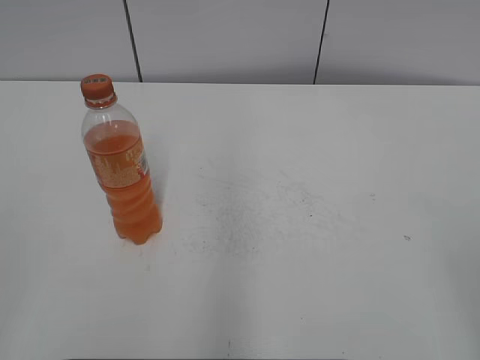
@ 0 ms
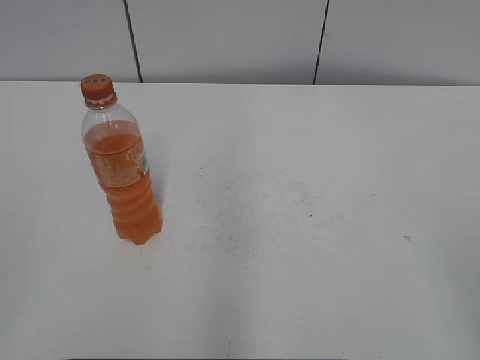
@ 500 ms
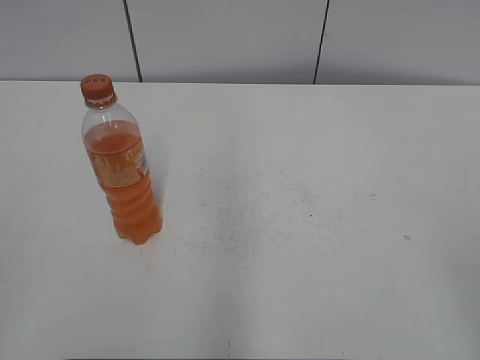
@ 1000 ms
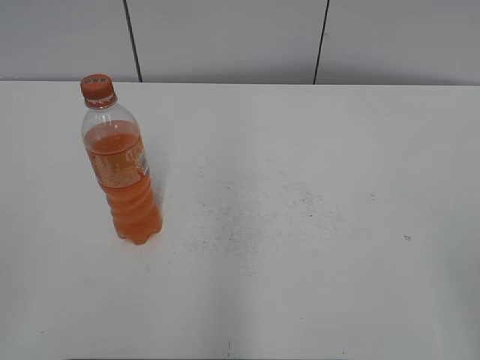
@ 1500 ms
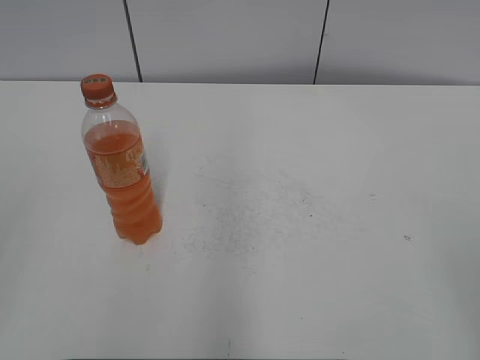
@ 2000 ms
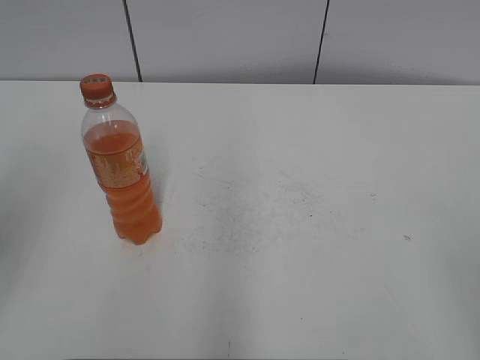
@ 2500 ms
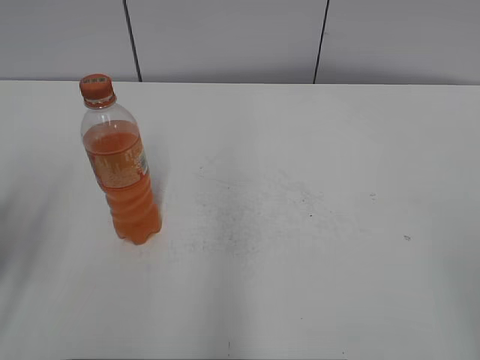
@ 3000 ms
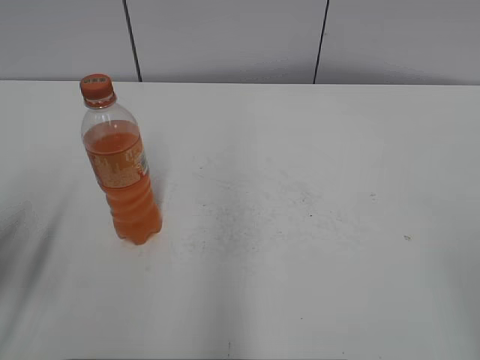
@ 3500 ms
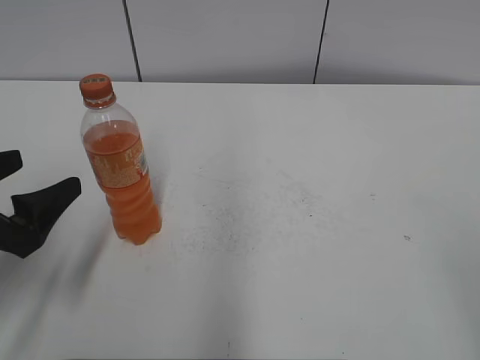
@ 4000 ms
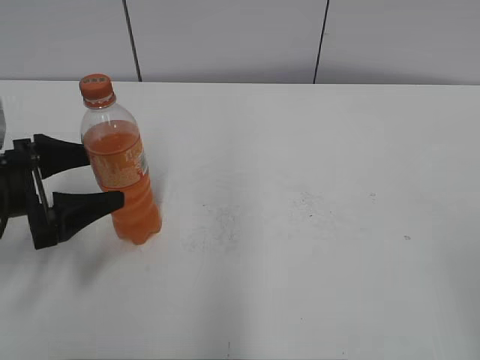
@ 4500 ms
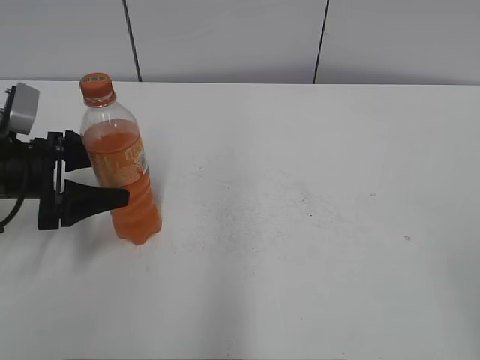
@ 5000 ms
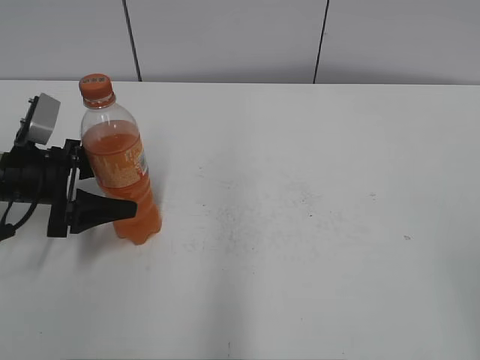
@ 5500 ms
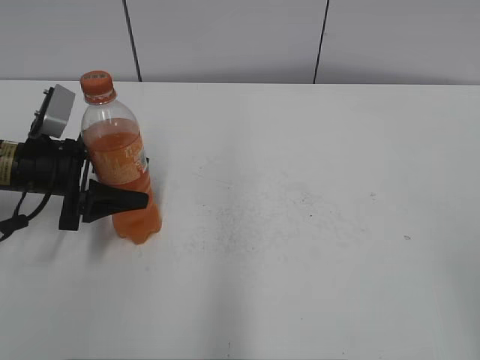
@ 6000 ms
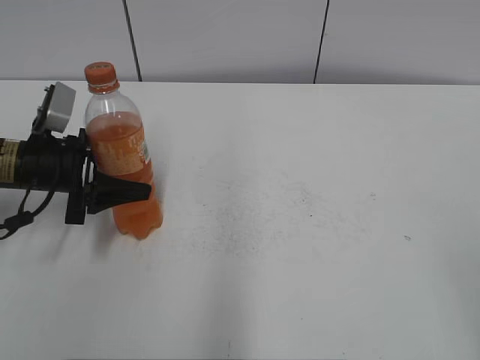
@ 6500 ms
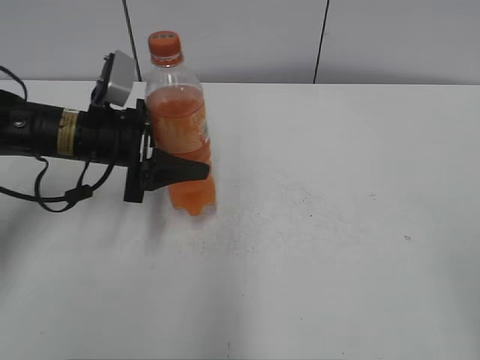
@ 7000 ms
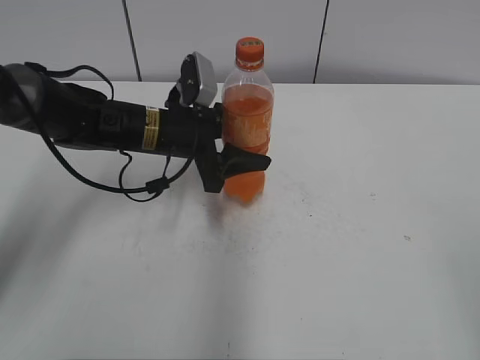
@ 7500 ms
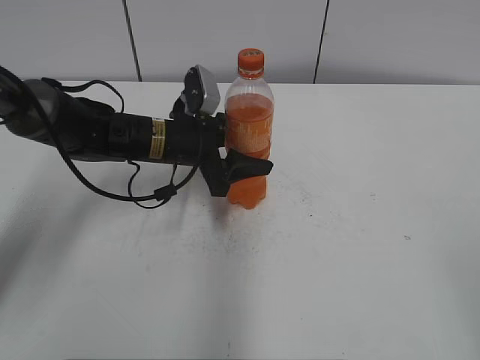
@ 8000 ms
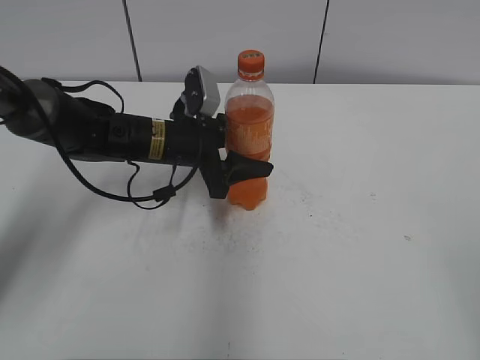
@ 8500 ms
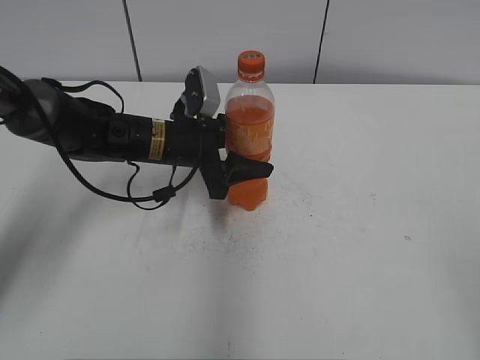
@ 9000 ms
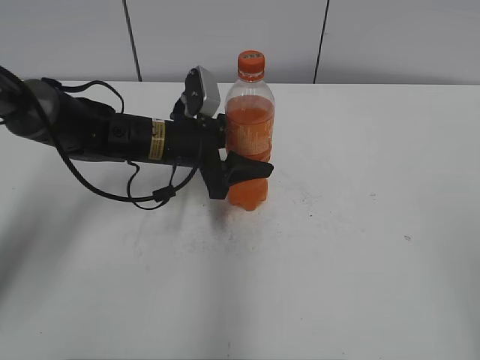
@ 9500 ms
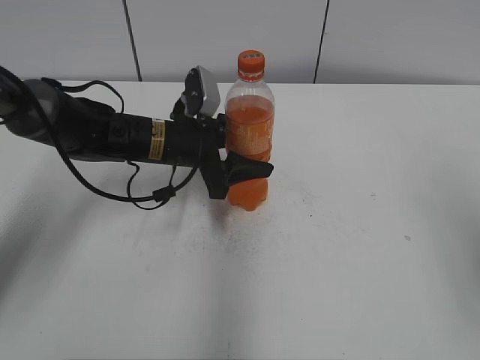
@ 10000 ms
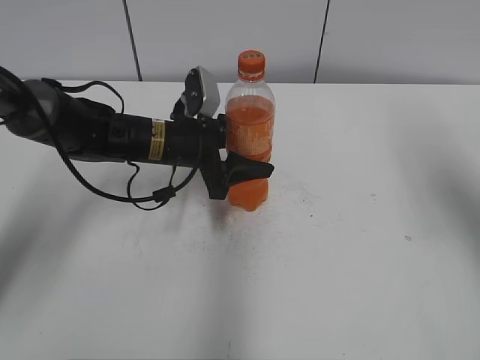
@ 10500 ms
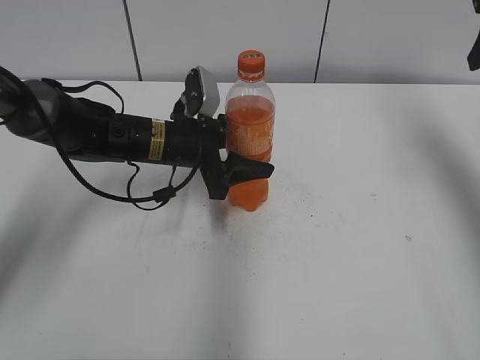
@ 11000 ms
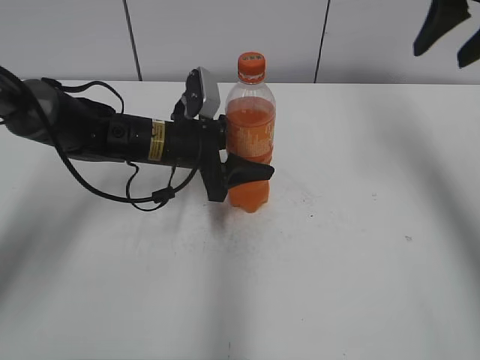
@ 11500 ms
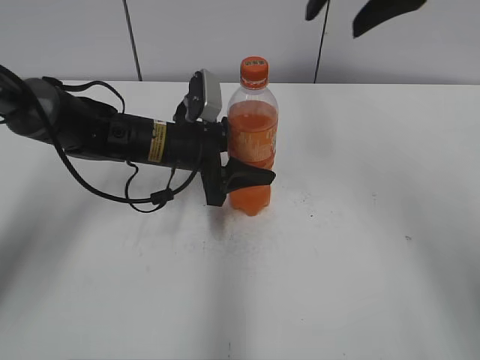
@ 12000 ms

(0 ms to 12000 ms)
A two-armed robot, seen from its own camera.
Step, 0 ms - 6000 ms: Grab the Mirinda with the left hand.
Step, 6500 ms - 8000 ms: Move the Mirinda from left to right.
2000 ms - 4000 ms: The left gripper heads forward and downward, covering some 25 cm, and opens its fingers.
4000 ms - 6000 ms: The left gripper heads forward, covering approximately 15 cm, and opens, then closes again.
6000 ms - 8000 ms: The left gripper goes roughly 15 cm to the right, and closes.
8000 ms - 10000 ms: The right gripper shifts about 10 cm forward.
10000 ms - 12000 ms: The right gripper travels forward and to the left by roughly 30 cm.

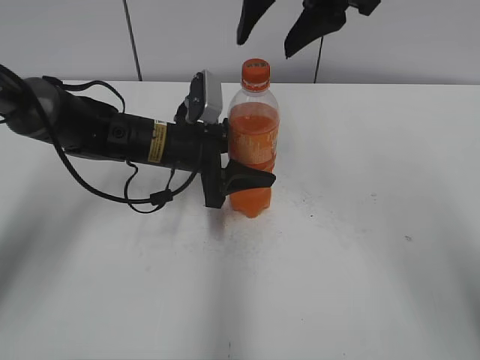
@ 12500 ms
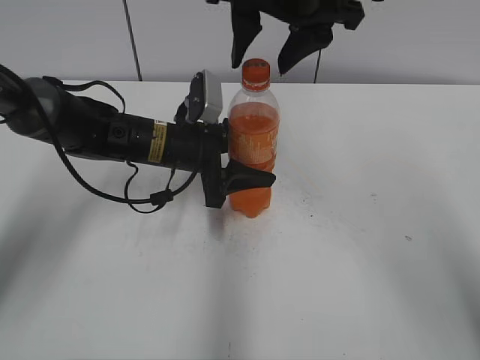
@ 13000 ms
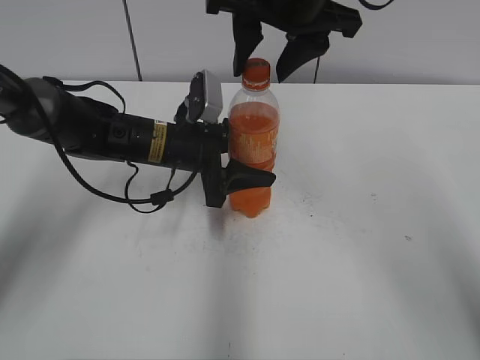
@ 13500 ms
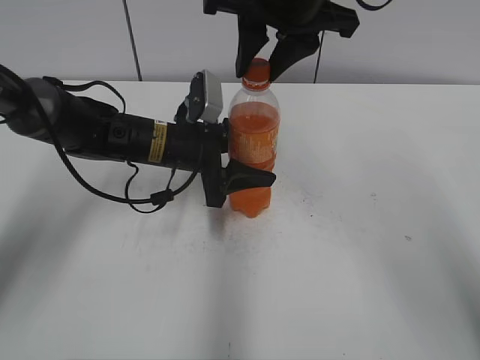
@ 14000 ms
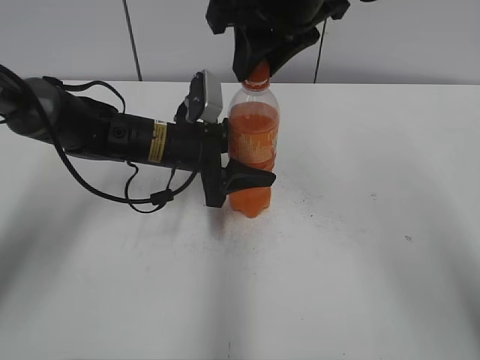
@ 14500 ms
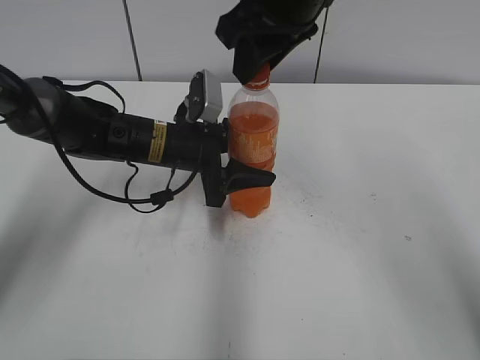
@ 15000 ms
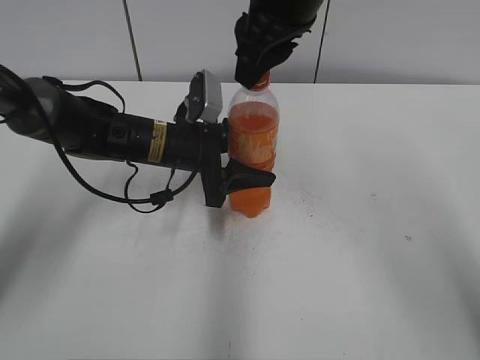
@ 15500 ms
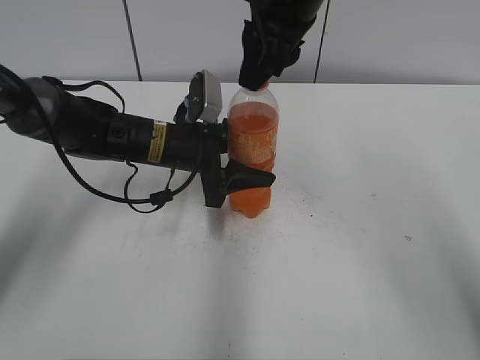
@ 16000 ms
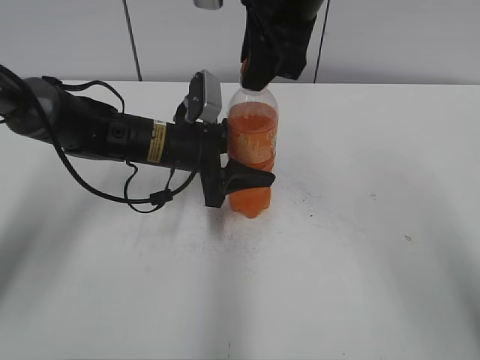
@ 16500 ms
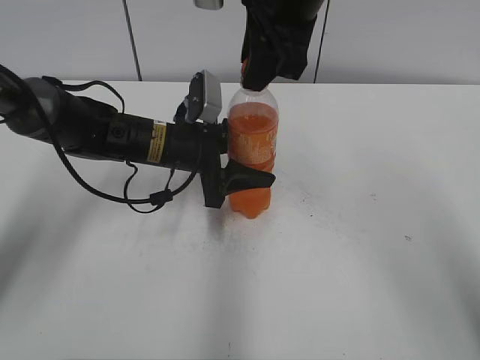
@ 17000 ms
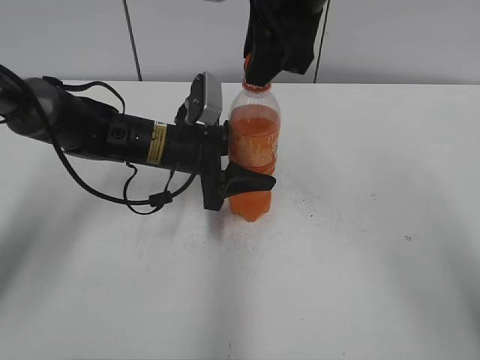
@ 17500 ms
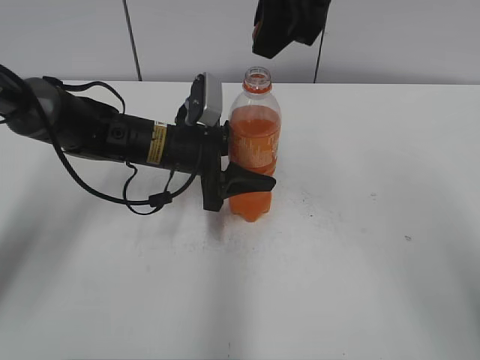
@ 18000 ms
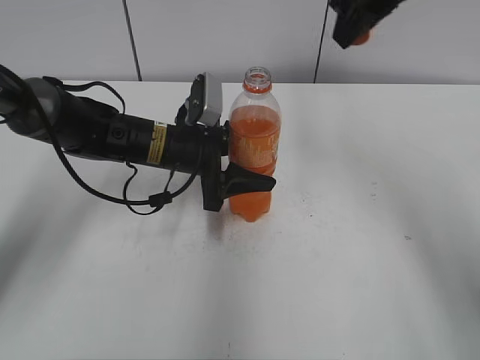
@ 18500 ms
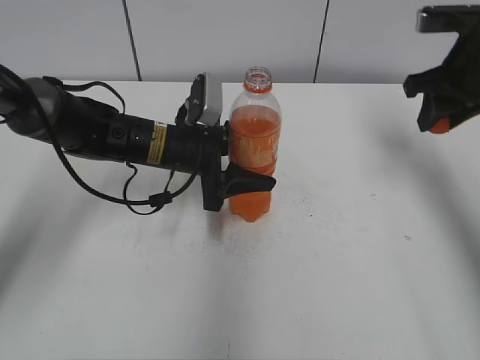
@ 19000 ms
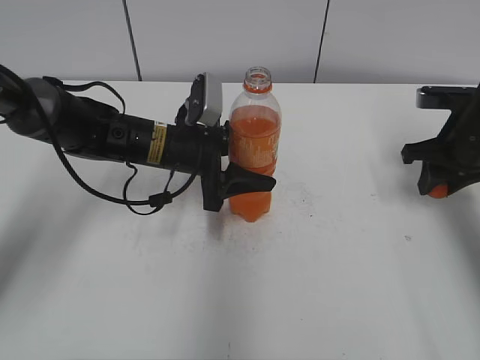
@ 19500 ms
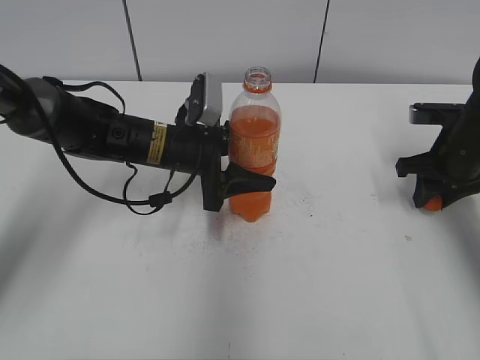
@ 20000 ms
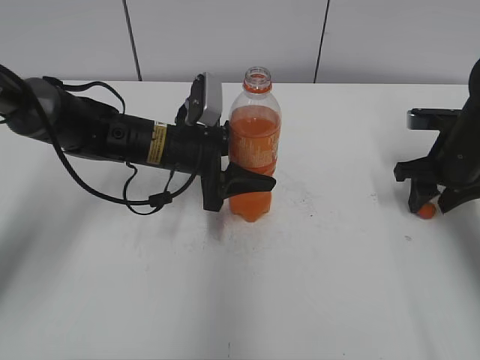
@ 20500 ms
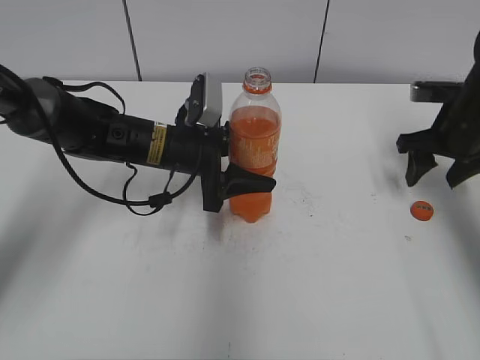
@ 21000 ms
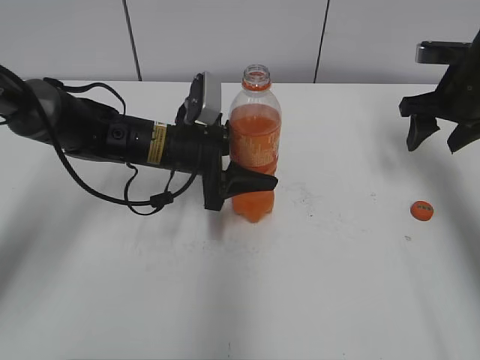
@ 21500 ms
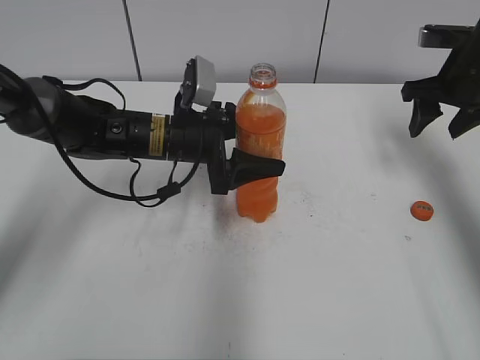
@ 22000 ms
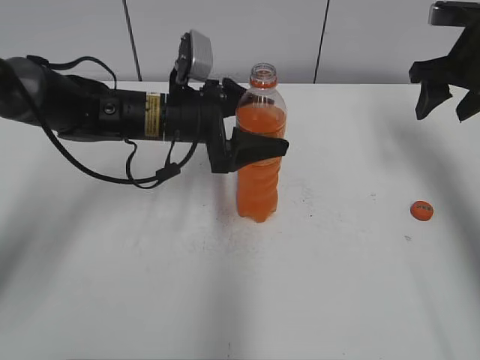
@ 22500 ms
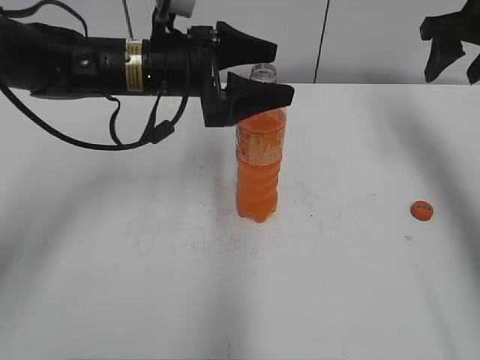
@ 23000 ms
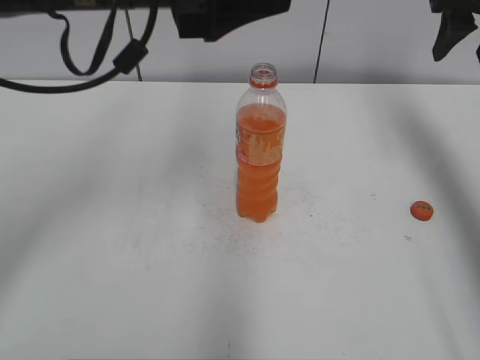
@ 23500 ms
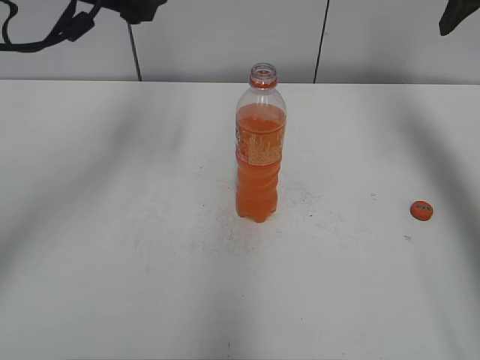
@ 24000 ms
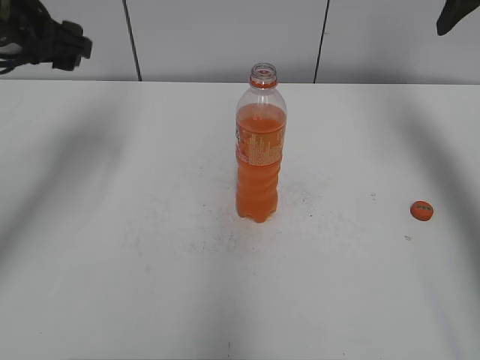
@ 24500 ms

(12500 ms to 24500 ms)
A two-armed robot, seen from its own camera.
Step, 12500 ms - 17500 ms: Twist the bottle cap with the right hand.
Step, 18000 ms - 20500 ms: Place the bottle cap on the right.
Step, 21000 ms - 22000 ms: Place the Mirinda with the left hand.
12500 ms - 14500 ms: The right gripper closes up.
16500 ms - 18500 ms: The right gripper goes roughly 10 cm to the right.
18500 ms - 20500 ms: The right gripper heads downward and to the right, covering roughly 30 cm.
20500 ms - 22500 ms: The left gripper opens; the right gripper shifts some 10 cm upward, and opens up.
22500 ms - 24500 ms: The right gripper moves upward, roughly 10 cm. The left gripper moves to the left and upward, roughly 20 cm.

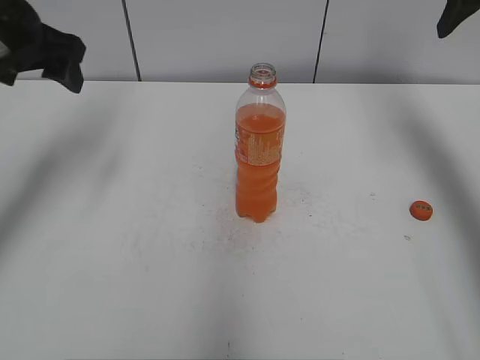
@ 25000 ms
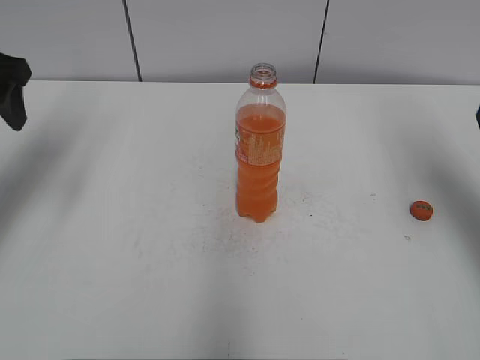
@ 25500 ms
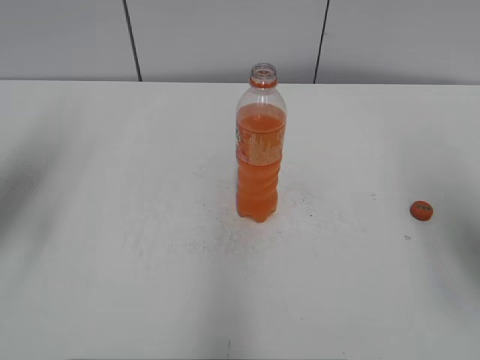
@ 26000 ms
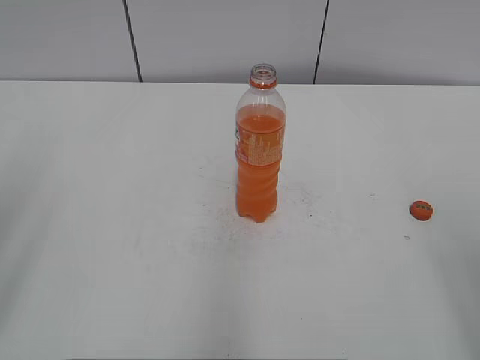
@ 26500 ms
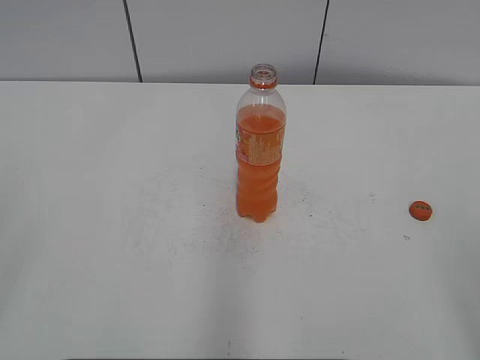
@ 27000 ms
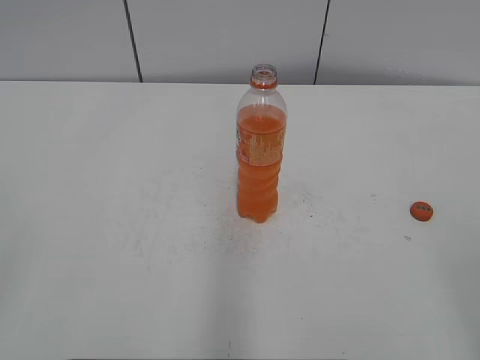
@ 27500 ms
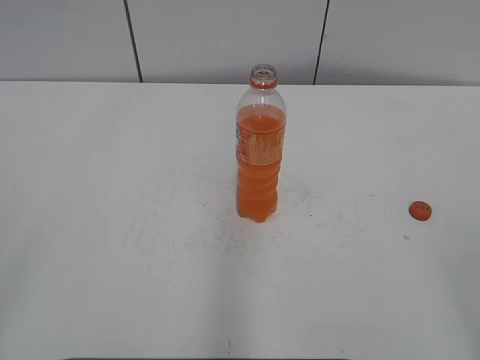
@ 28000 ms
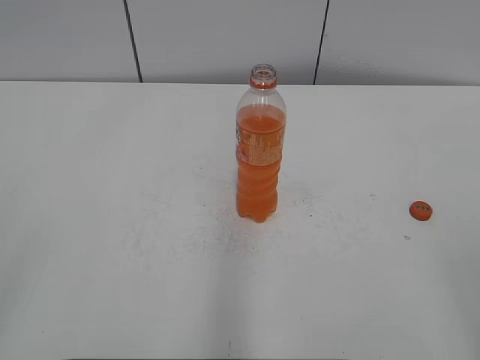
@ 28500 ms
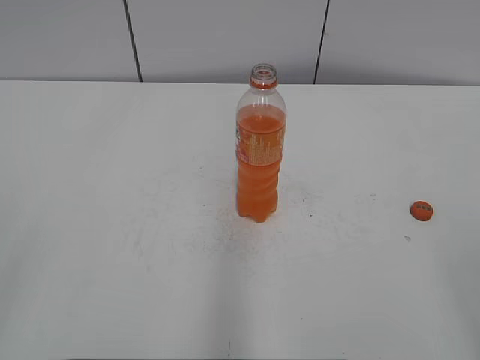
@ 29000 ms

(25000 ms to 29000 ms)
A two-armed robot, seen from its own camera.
25000 ms - 27000 ms: Both grippers move backward, roughly 35 cm.
